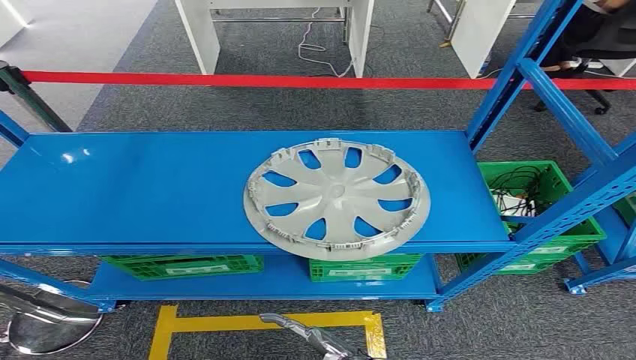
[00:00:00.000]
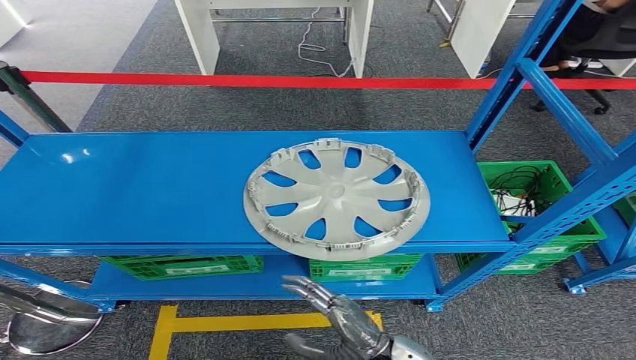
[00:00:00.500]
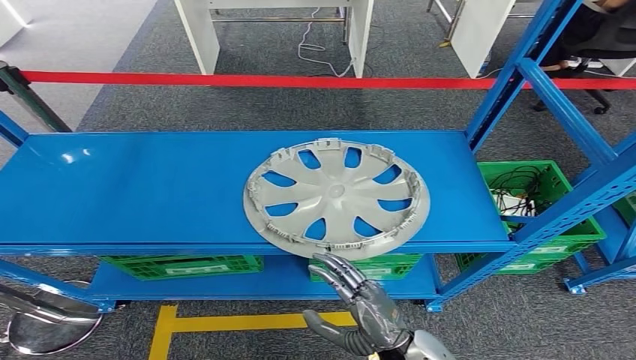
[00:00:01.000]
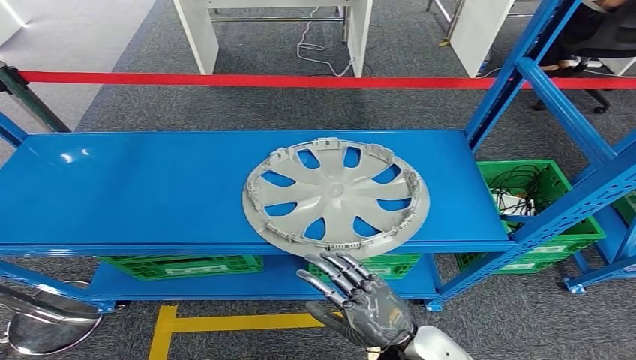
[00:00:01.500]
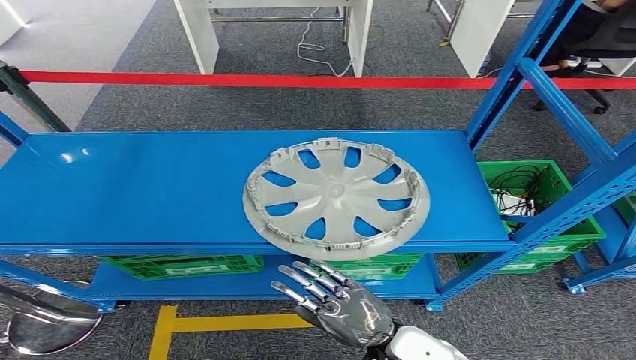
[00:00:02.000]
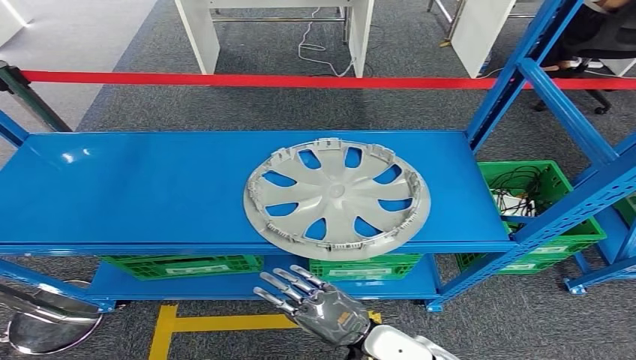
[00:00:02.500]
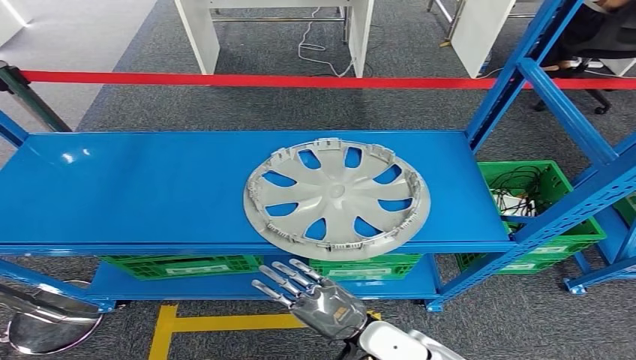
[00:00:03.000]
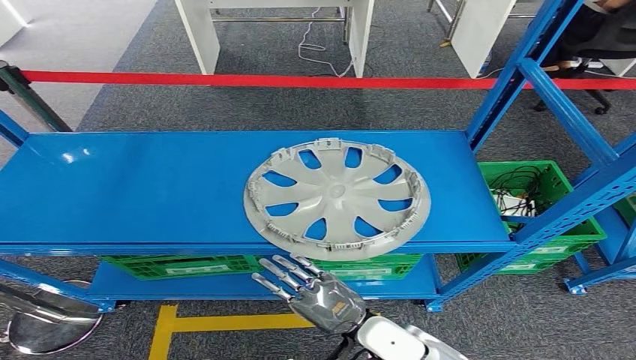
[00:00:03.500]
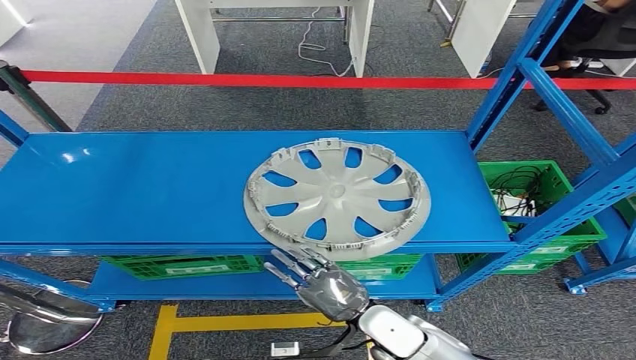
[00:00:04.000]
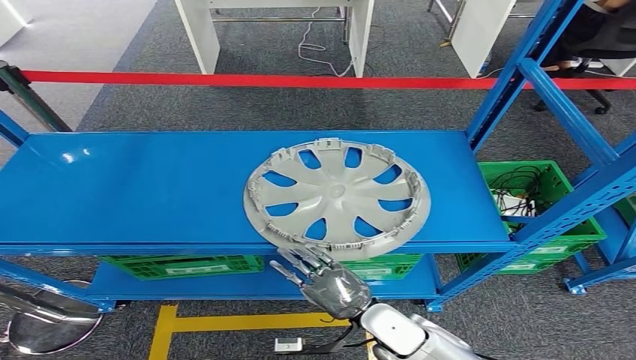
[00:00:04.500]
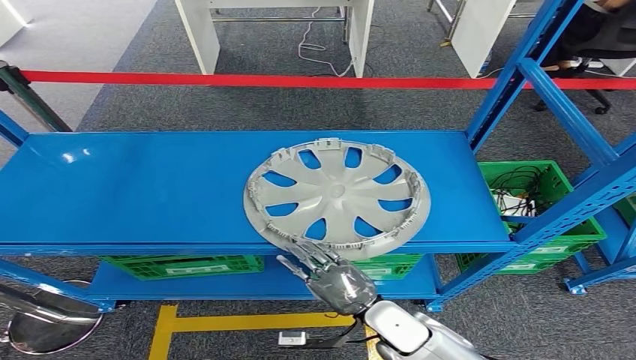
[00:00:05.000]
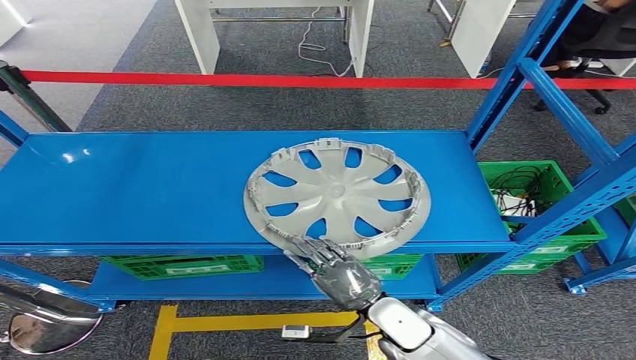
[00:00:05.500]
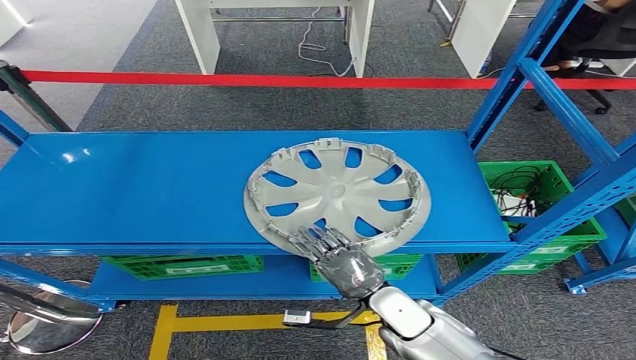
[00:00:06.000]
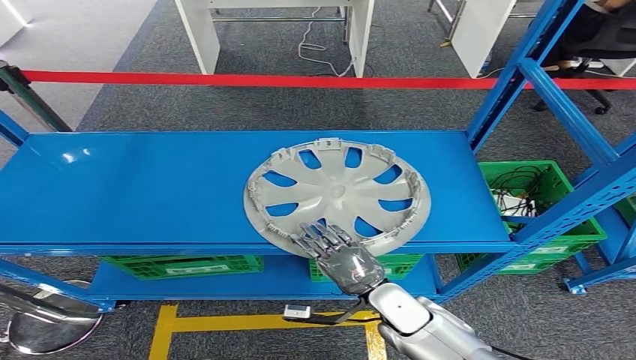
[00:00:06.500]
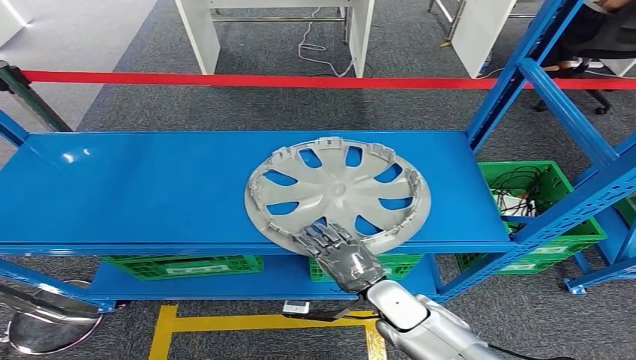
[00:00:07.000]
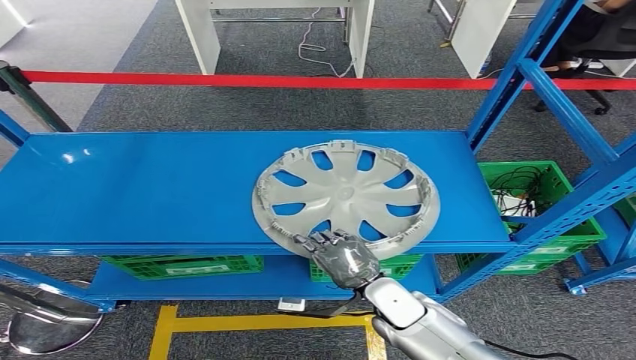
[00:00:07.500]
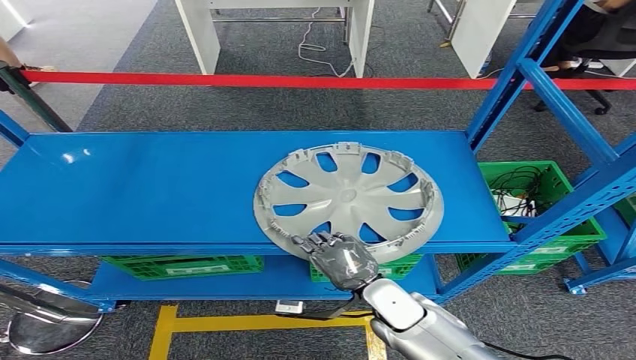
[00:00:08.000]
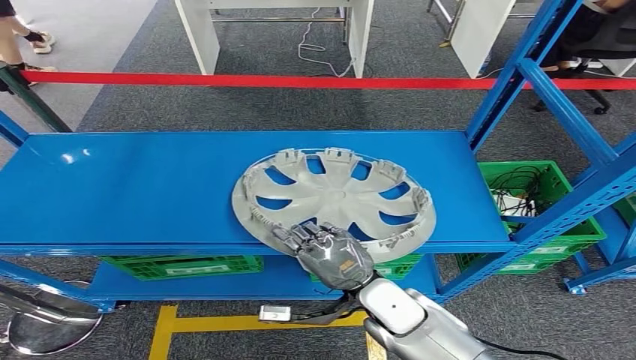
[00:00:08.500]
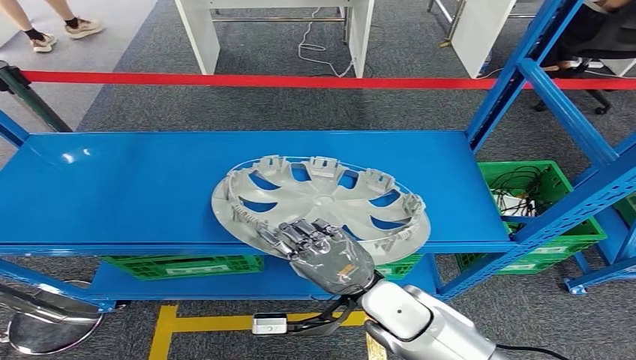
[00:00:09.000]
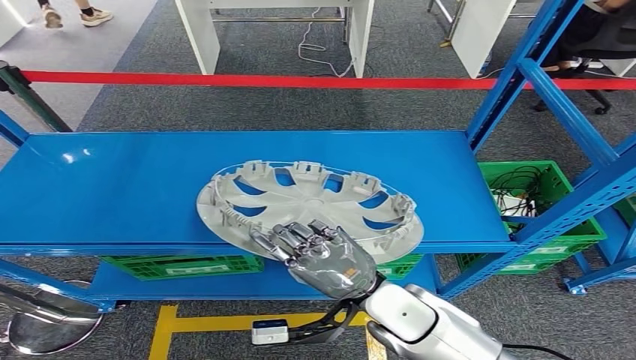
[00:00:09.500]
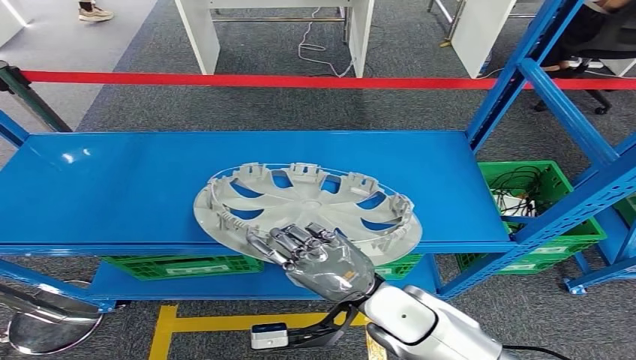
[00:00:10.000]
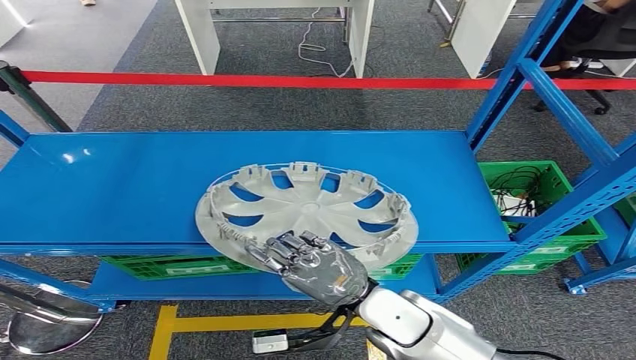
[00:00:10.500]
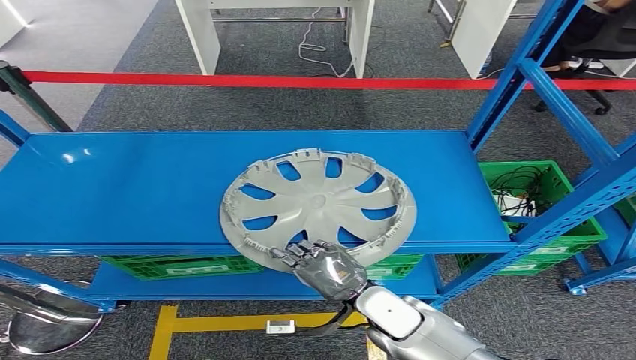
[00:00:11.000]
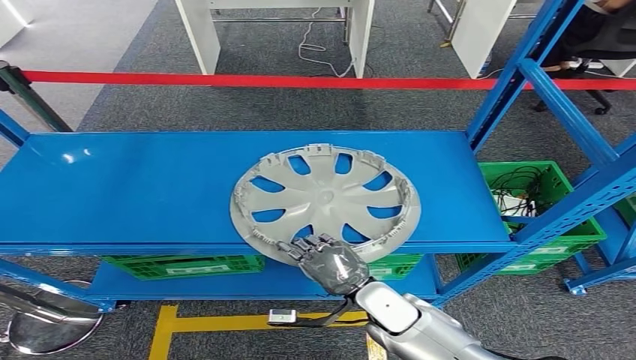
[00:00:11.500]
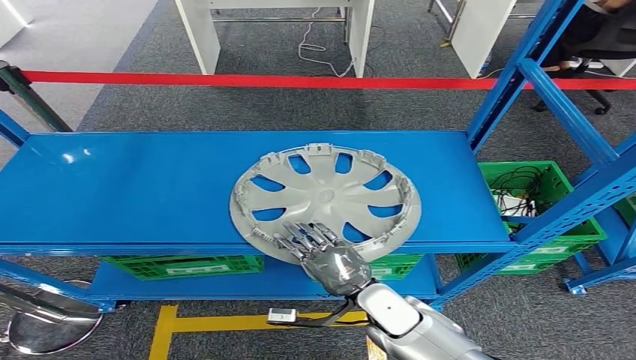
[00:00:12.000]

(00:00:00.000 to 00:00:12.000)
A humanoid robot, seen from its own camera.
Step, 00:00:00.000 - 00:00:08.500: Pick up the small component from the shelf.
00:00:02.000 - 00:00:04.000: The right hand moves approximately 5 cm.
00:00:04.000 - 00:00:08.000: There are only small adjustments of the hands.
00:00:08.000 - 00:00:10.000: The right hand heads upward, covering about 10 cm.
00:00:10.000 - 00:00:12.000: The right hand travels downward by roughly 10 cm.

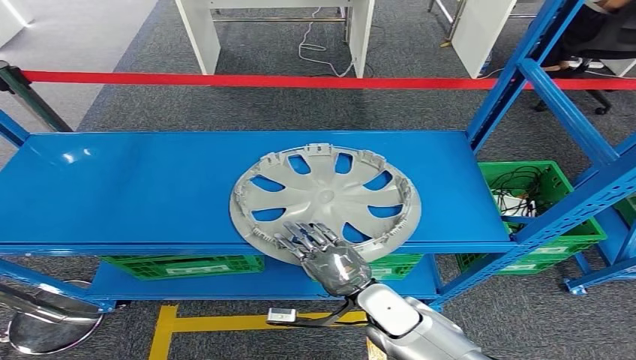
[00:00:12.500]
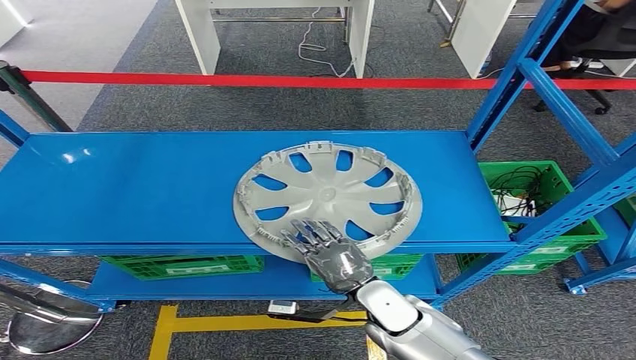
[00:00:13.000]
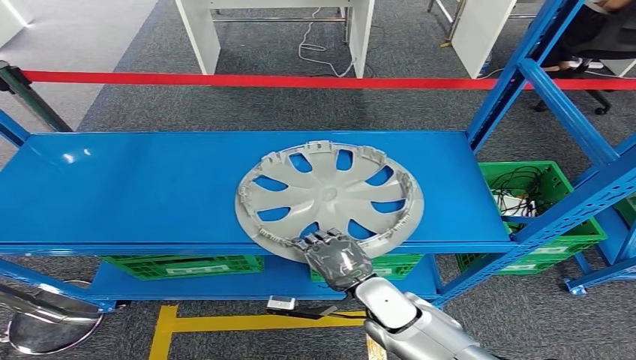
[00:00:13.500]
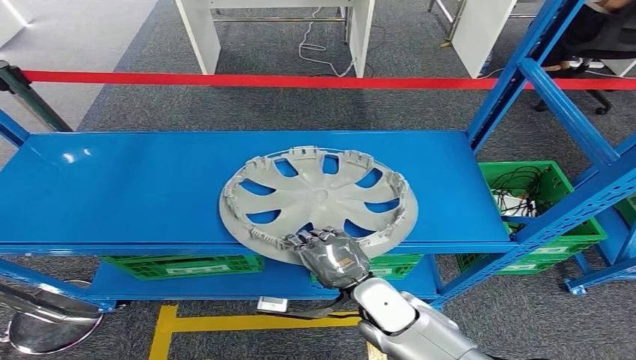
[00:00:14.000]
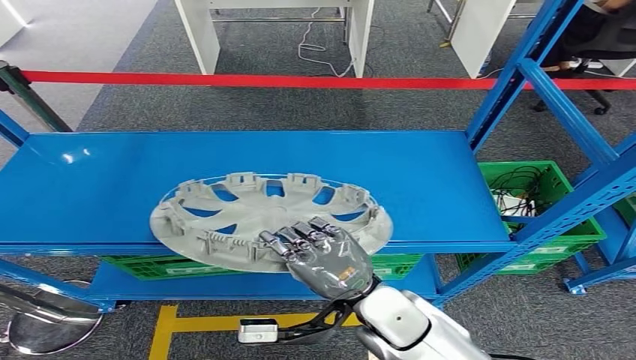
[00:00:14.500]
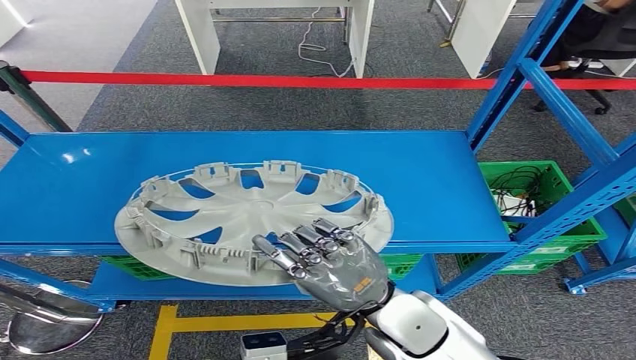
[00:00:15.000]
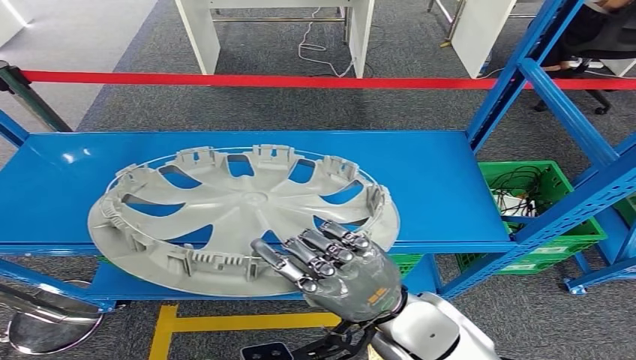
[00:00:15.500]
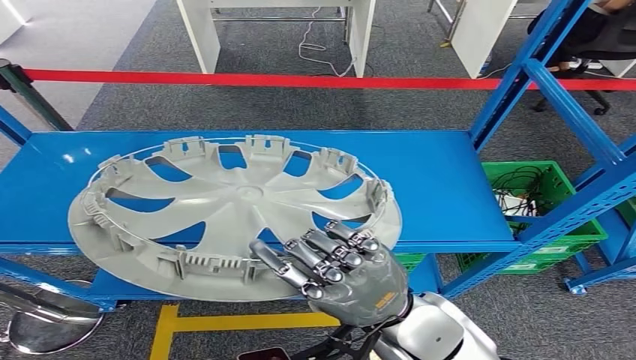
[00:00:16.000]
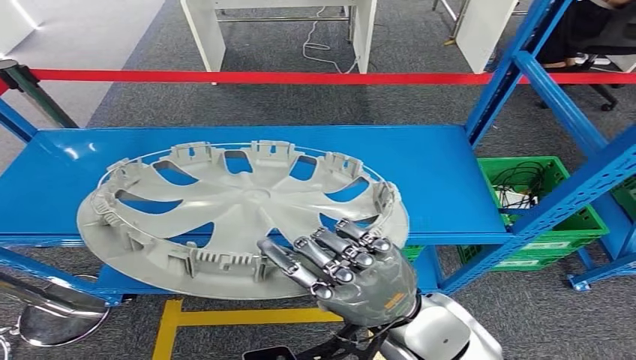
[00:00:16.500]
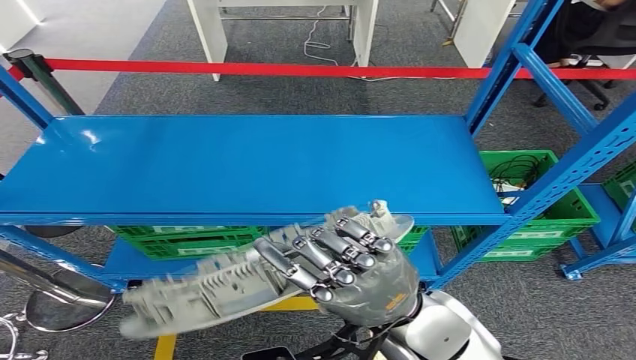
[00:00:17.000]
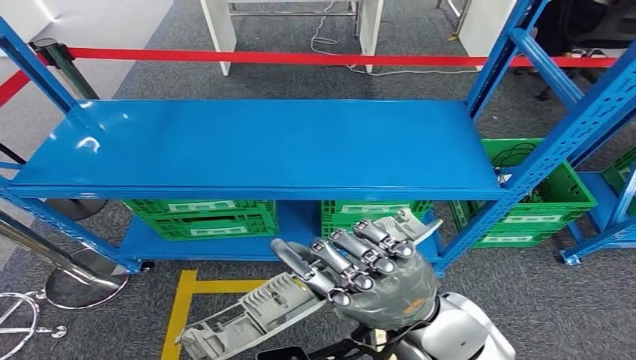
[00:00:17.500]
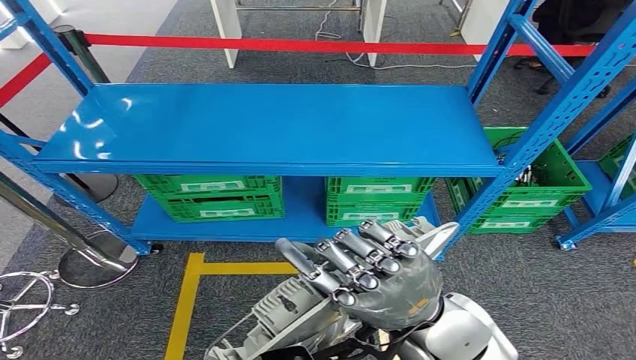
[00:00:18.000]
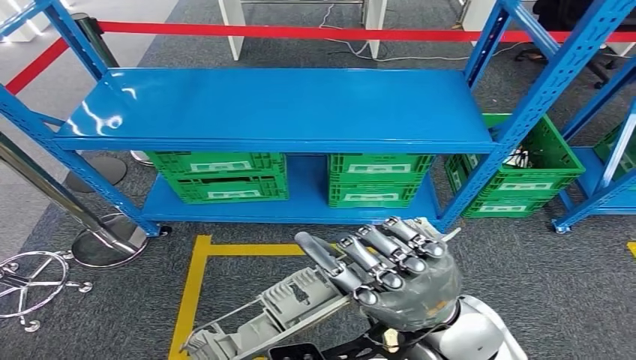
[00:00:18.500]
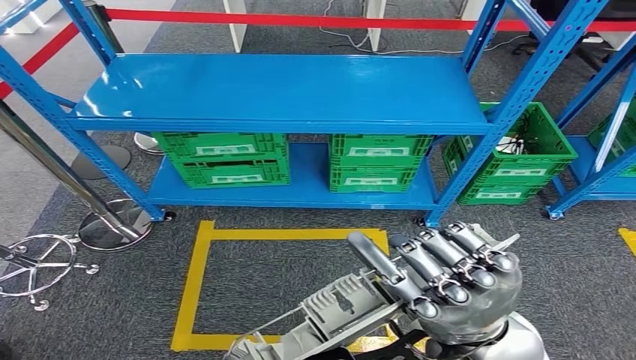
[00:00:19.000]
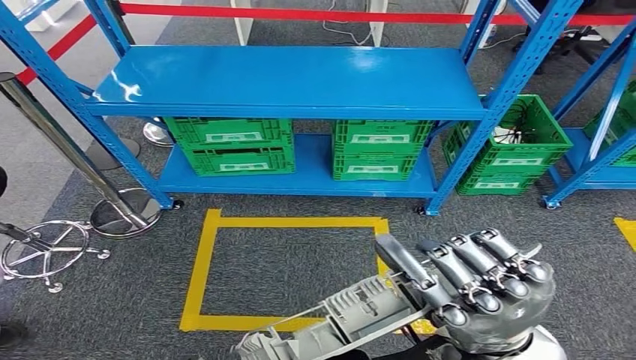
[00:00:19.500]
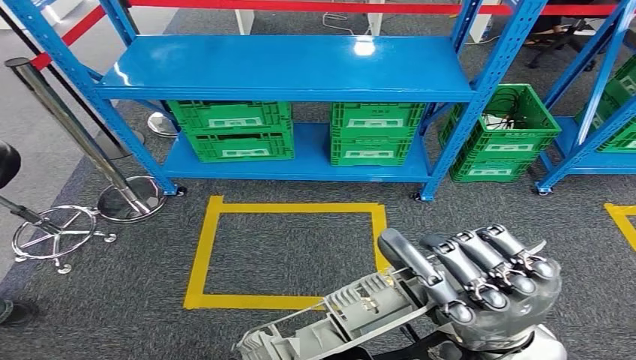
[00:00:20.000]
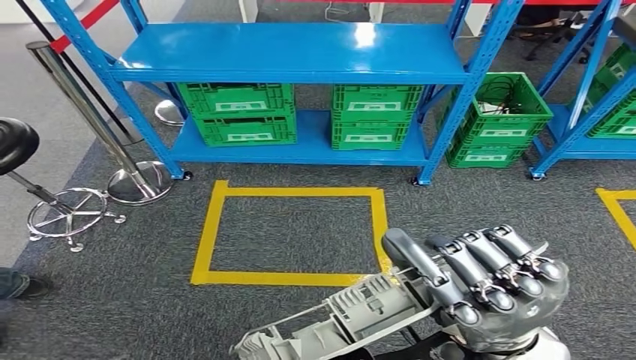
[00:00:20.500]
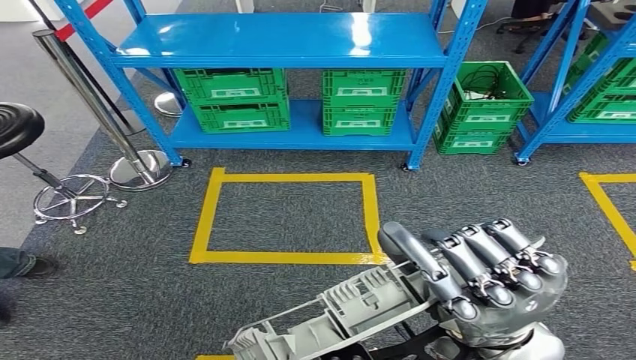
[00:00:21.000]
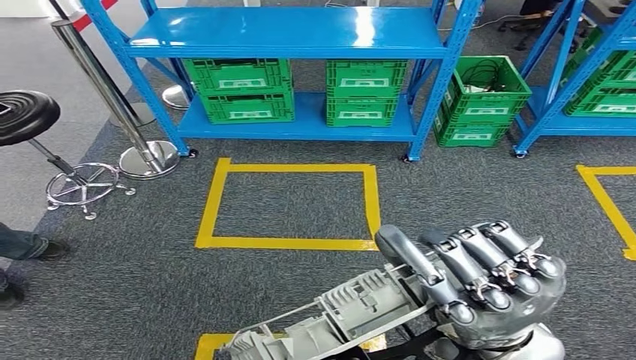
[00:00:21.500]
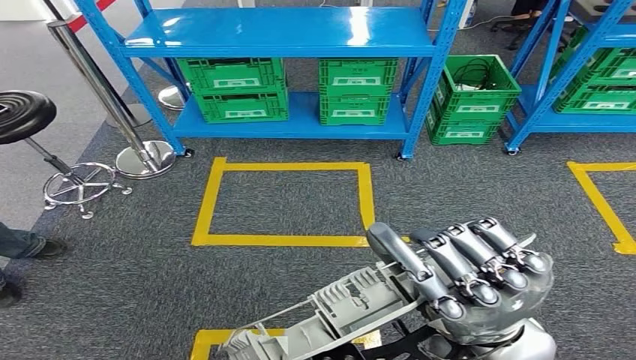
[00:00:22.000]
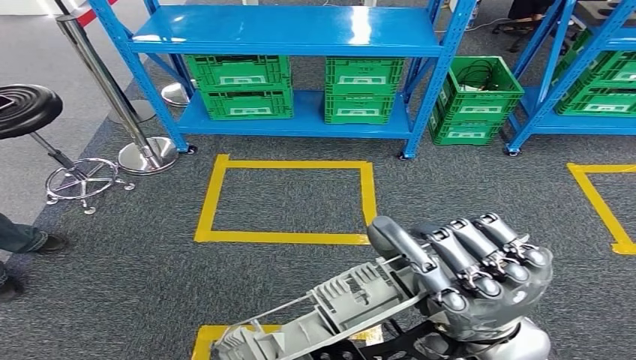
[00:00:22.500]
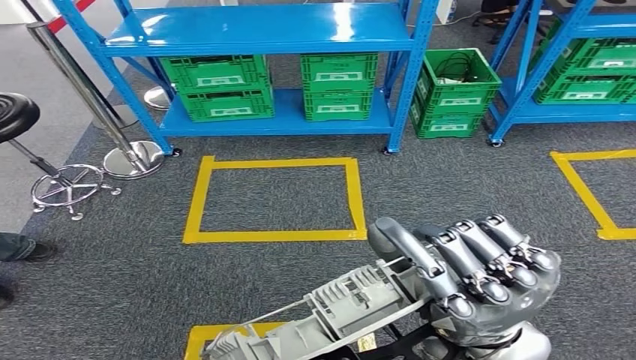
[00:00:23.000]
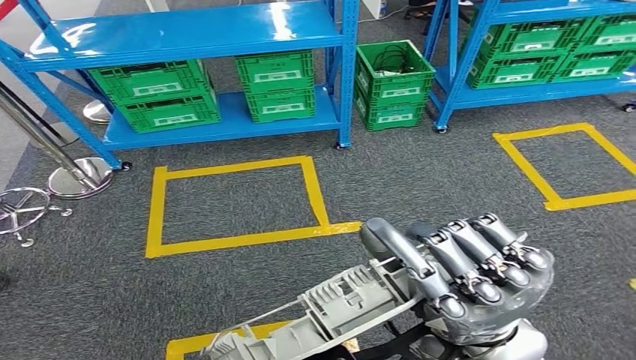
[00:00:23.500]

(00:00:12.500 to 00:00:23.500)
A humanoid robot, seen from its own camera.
00:00:12.500 - 00:00:14.500: The right hand goes some 10 cm upward.
